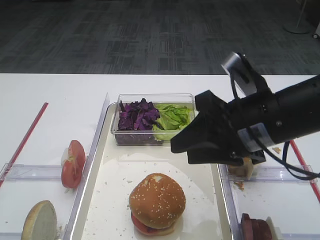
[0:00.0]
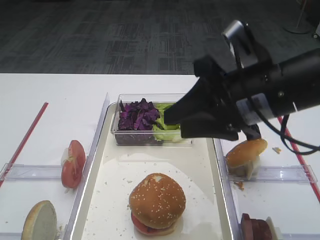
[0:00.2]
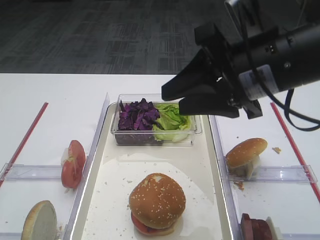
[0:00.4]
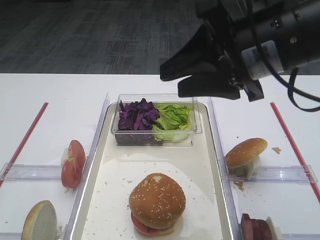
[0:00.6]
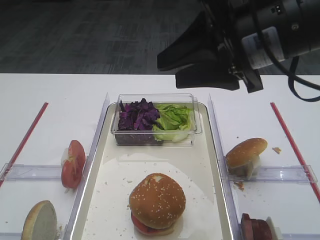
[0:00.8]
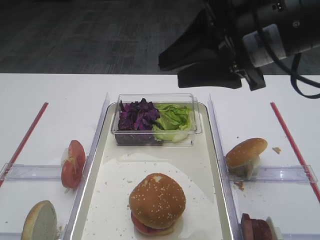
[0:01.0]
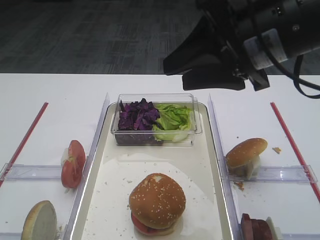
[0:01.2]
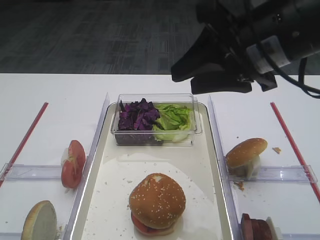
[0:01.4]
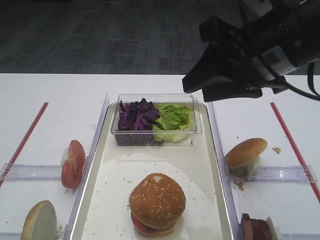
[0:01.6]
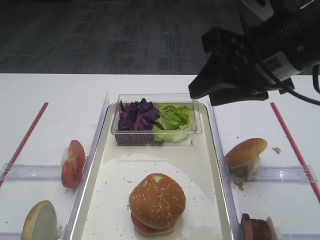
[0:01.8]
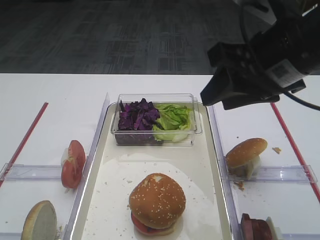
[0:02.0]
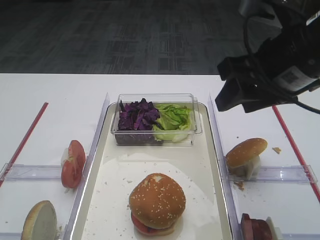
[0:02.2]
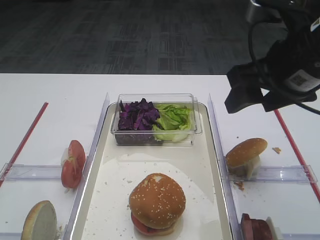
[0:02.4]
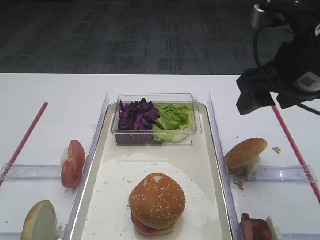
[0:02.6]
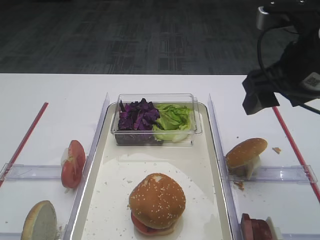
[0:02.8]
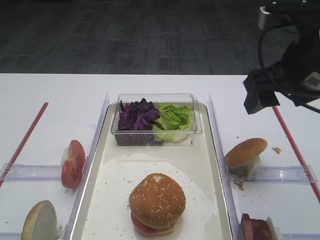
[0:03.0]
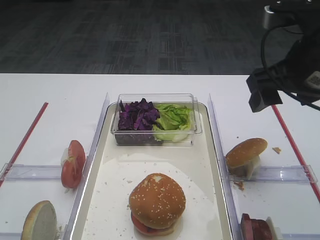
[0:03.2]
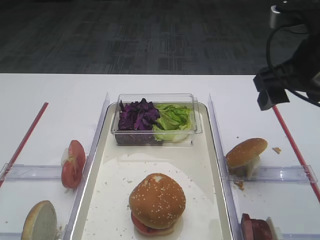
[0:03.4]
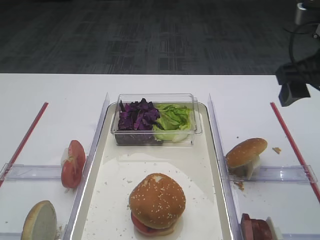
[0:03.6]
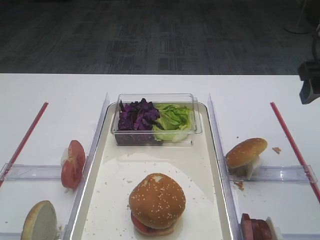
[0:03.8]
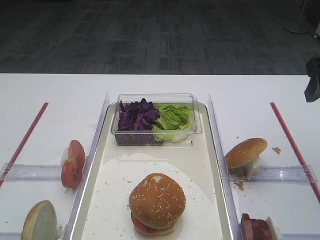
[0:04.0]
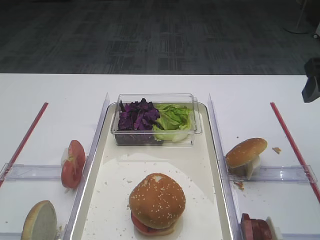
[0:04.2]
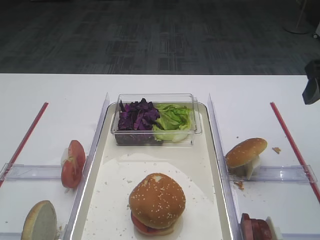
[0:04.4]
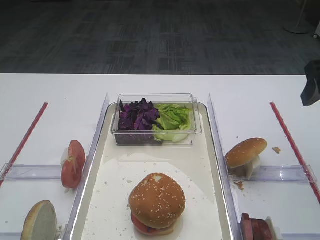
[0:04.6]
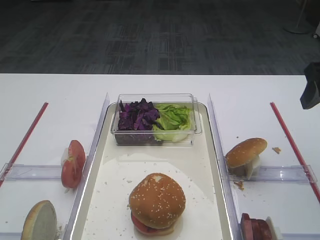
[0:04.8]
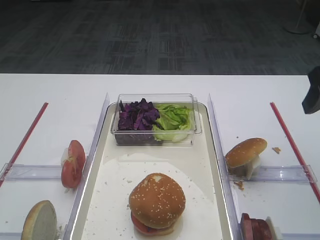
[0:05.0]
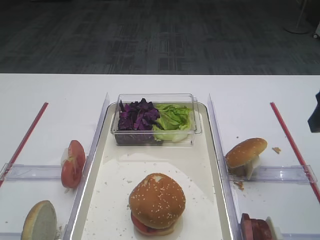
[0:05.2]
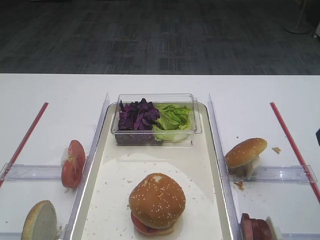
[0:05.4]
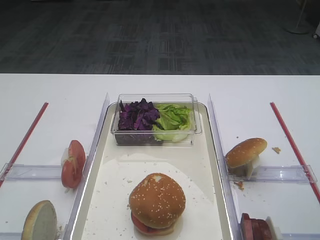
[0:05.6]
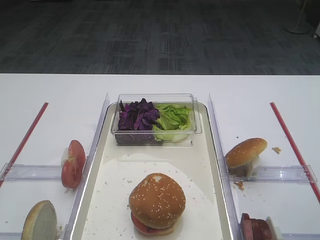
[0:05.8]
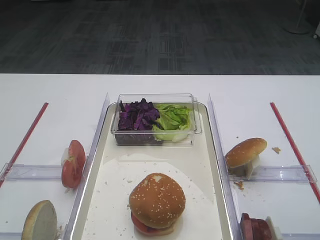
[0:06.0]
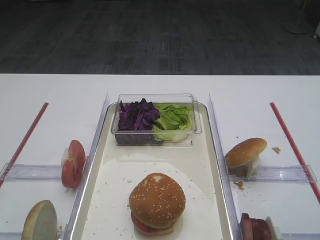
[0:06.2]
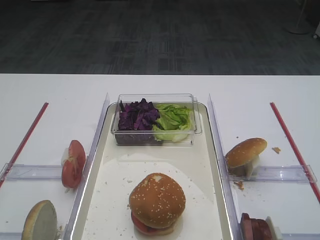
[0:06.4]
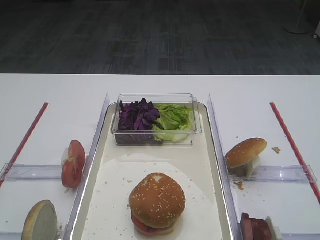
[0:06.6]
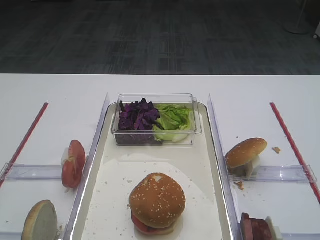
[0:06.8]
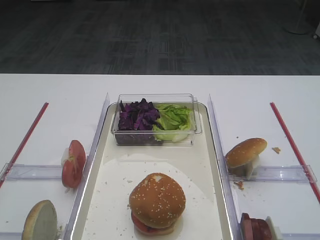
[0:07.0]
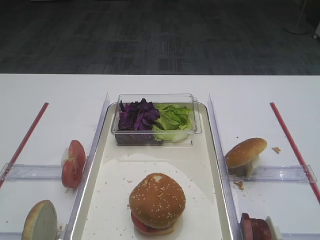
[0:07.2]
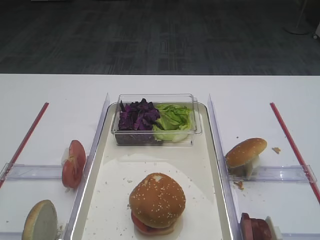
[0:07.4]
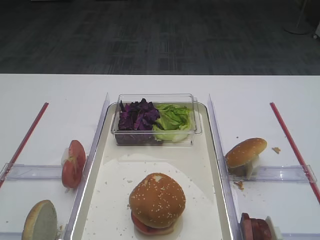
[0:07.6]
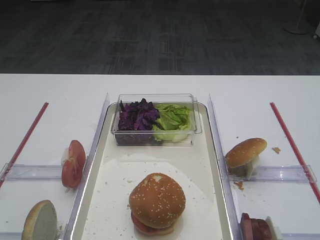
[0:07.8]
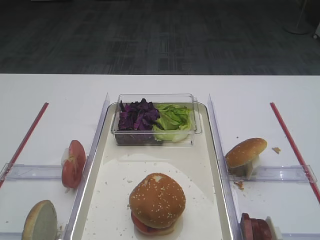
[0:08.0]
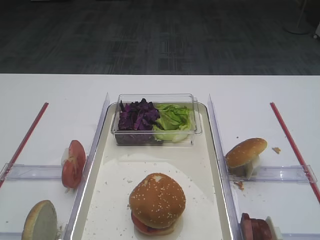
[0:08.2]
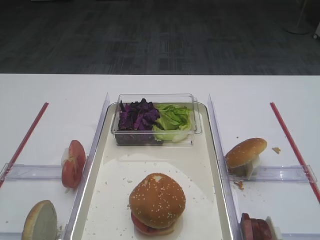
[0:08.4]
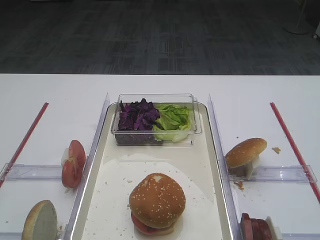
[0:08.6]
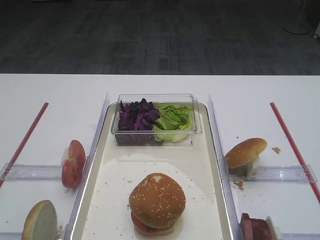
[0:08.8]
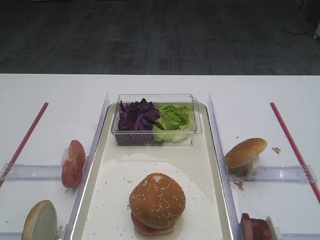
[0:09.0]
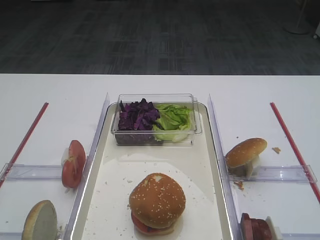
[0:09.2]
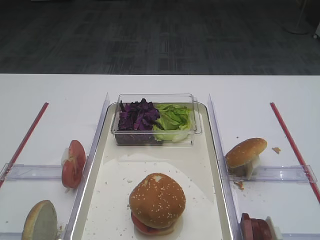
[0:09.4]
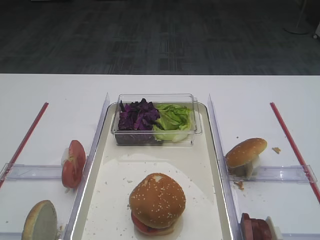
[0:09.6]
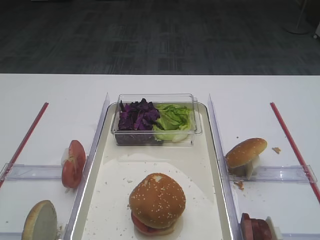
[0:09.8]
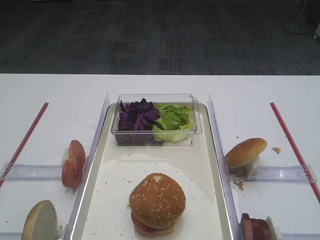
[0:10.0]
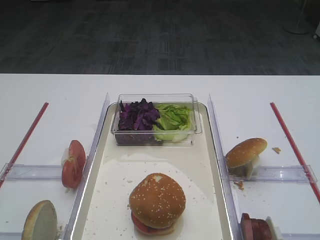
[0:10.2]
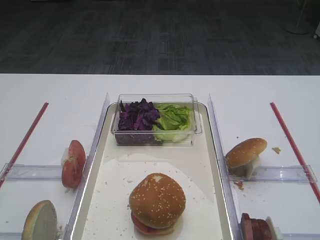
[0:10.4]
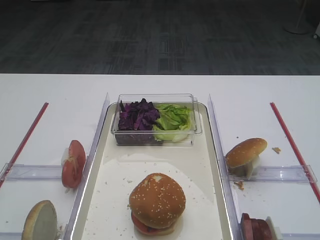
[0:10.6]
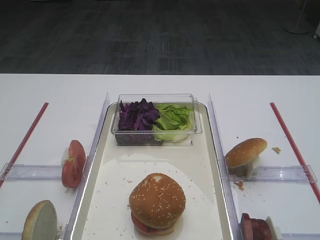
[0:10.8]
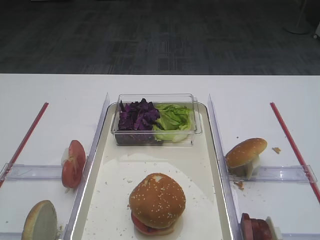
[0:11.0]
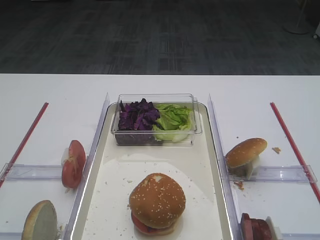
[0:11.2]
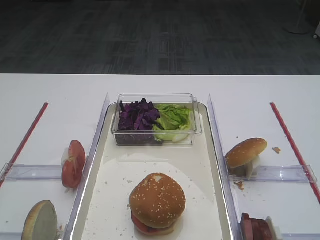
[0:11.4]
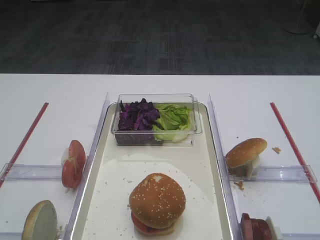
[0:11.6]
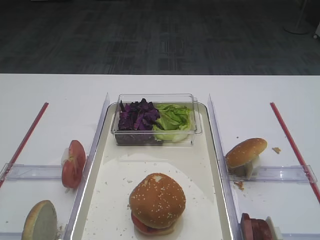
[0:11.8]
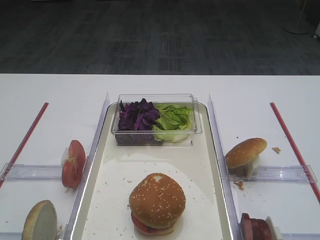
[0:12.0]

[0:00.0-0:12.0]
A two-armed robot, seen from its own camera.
0:00.0 to 0:01.6: The right gripper moves upward, about 10 cm.
0:01.6 to 0:03.0: The right gripper shifts by about 5 cm, and opens up.
0:03.0 to 0:04.4: The right gripper travels to the right by roughly 10 cm.
0:04.4 to 0:06.0: The right gripper goes about 15 cm backward.
0:07.6 to 0:12.0: Neither gripper changes place.

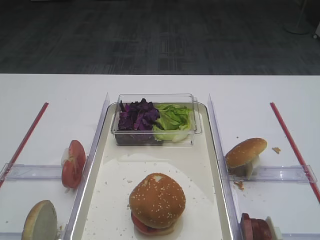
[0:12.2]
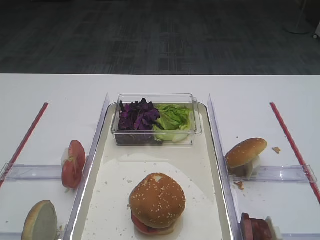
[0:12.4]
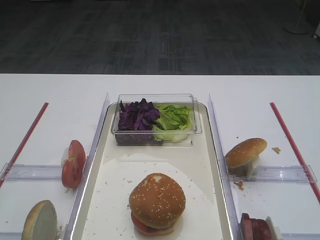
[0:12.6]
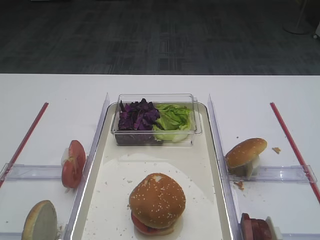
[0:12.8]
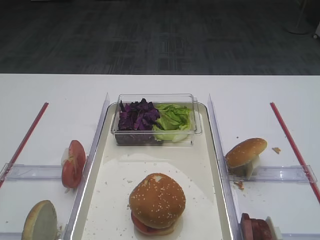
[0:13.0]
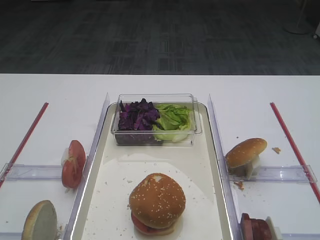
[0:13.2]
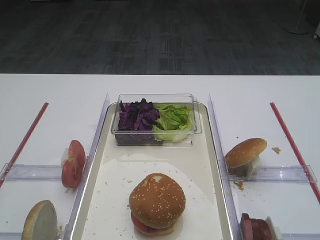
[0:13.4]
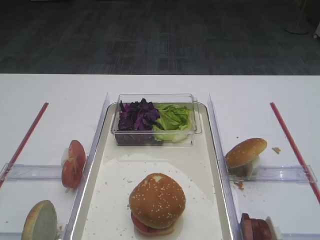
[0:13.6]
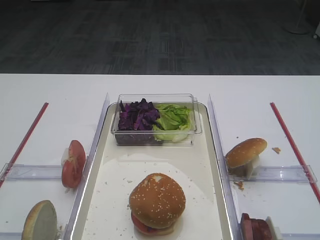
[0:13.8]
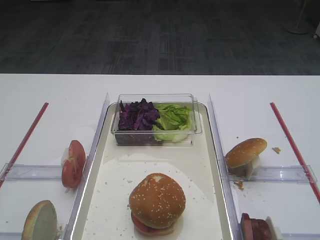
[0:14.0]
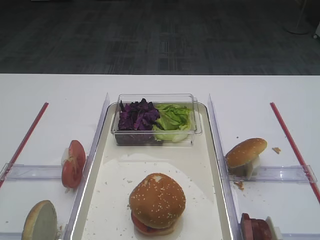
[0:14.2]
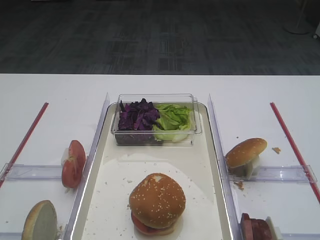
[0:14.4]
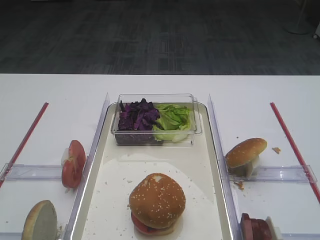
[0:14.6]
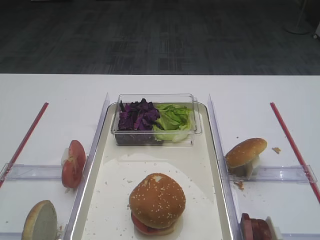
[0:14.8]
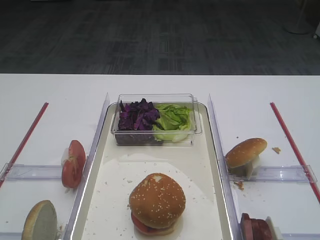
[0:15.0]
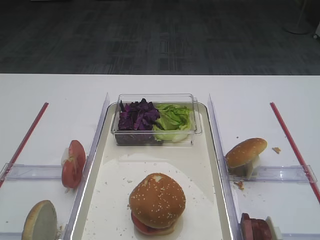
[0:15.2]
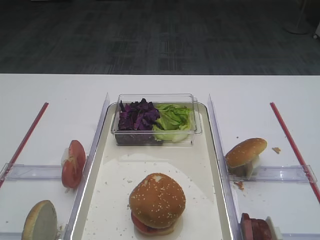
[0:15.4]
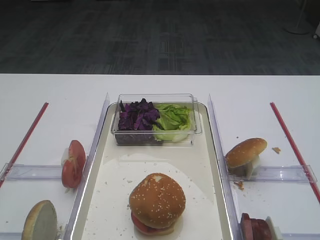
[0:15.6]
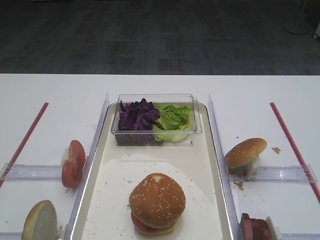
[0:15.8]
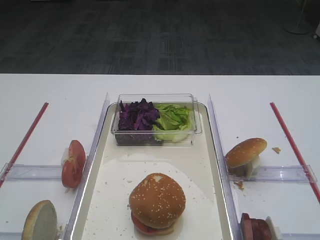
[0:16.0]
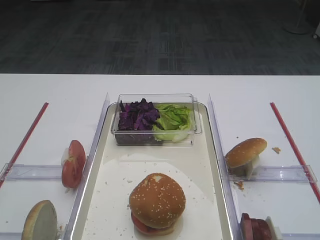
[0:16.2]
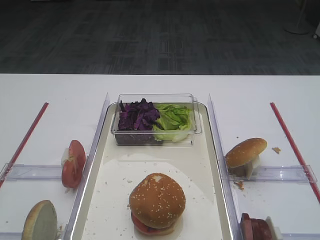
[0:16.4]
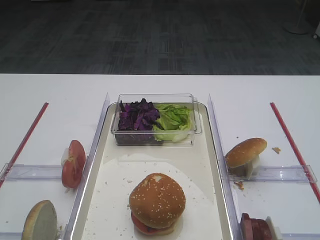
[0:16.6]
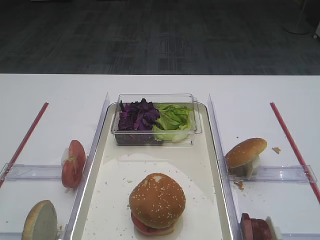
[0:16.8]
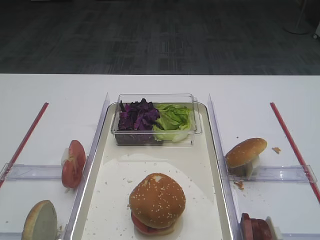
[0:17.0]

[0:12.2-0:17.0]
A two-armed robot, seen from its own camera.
0:12.2 to 0:15.4: Both grippers stay about where they are.
